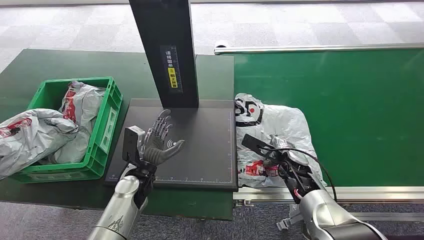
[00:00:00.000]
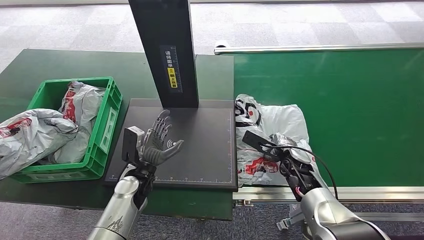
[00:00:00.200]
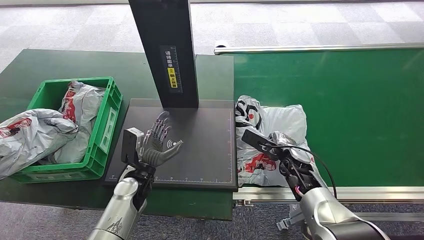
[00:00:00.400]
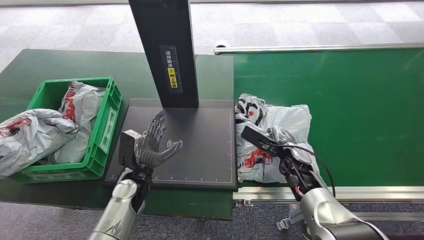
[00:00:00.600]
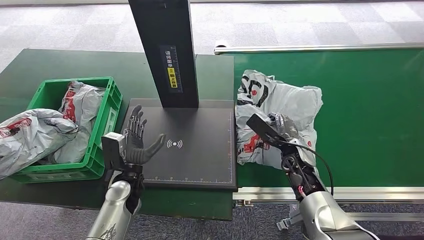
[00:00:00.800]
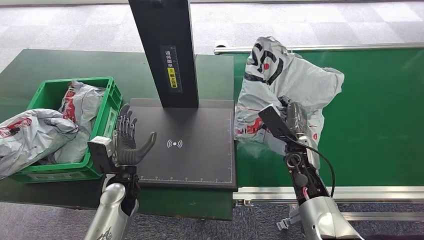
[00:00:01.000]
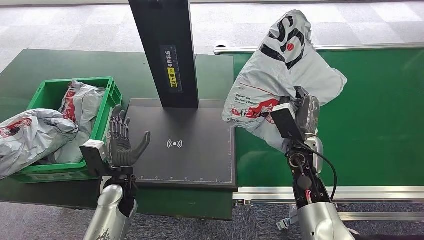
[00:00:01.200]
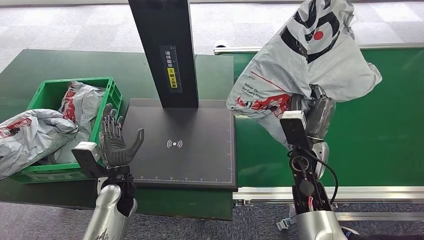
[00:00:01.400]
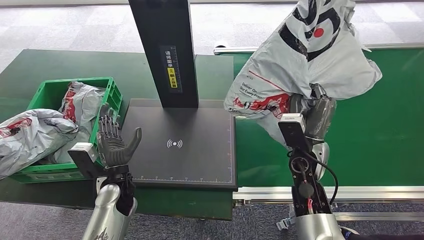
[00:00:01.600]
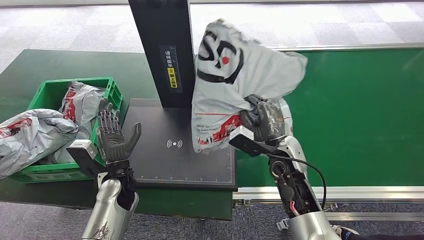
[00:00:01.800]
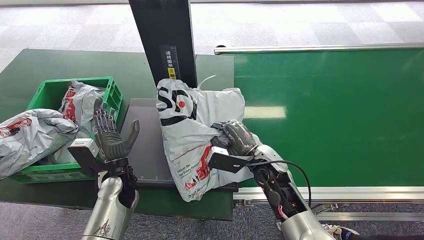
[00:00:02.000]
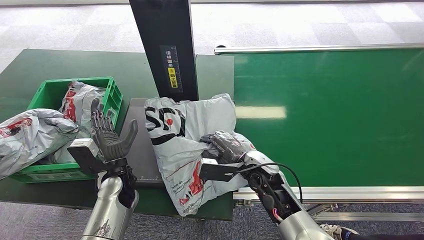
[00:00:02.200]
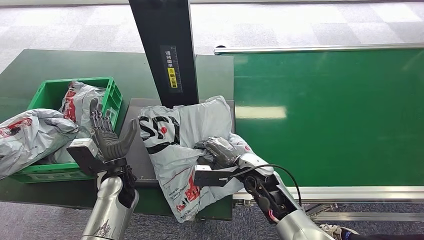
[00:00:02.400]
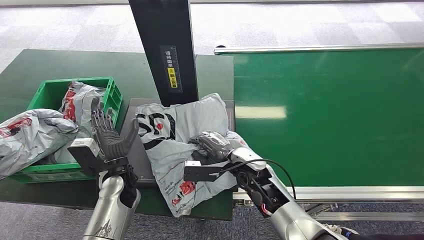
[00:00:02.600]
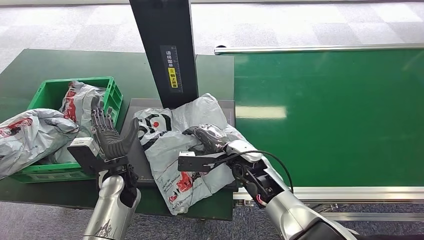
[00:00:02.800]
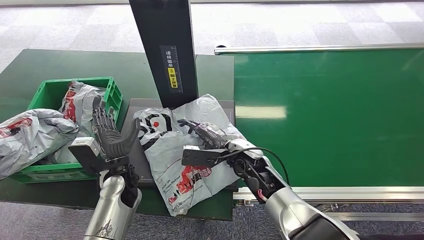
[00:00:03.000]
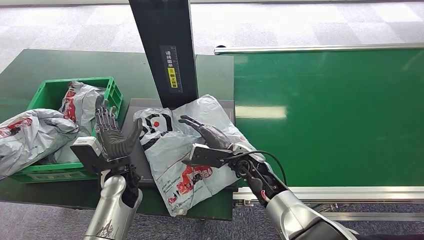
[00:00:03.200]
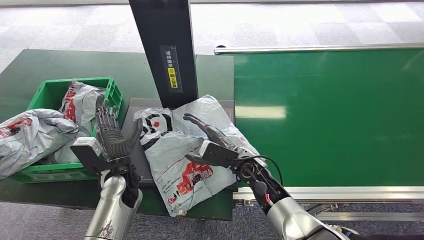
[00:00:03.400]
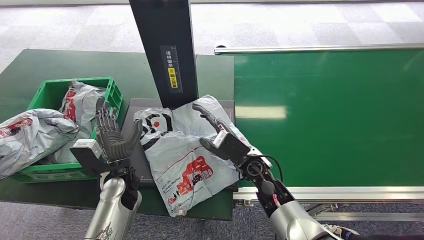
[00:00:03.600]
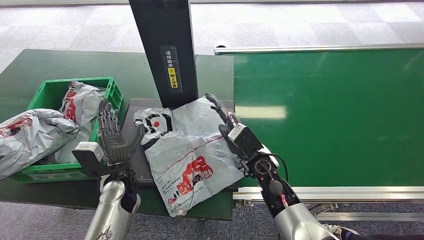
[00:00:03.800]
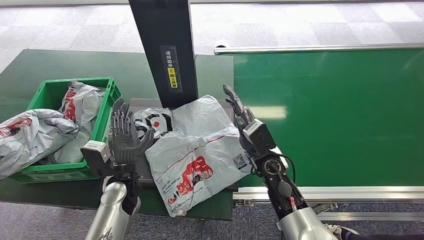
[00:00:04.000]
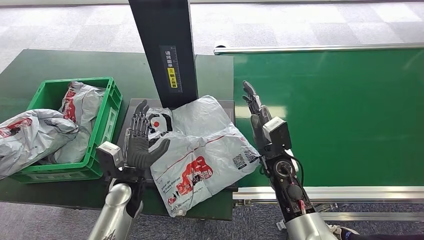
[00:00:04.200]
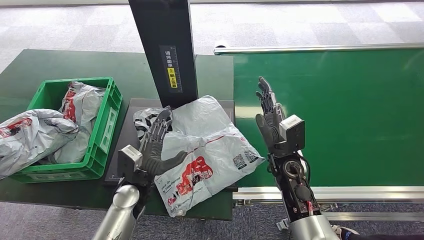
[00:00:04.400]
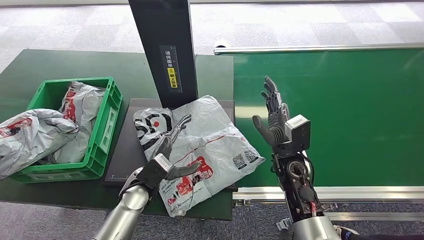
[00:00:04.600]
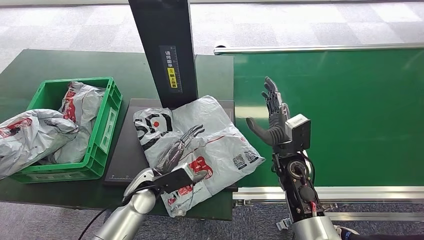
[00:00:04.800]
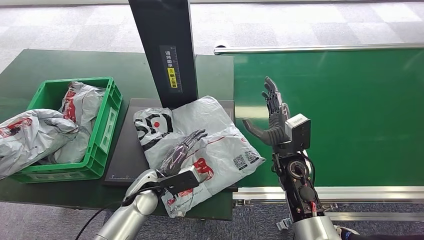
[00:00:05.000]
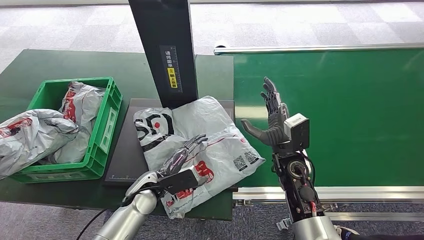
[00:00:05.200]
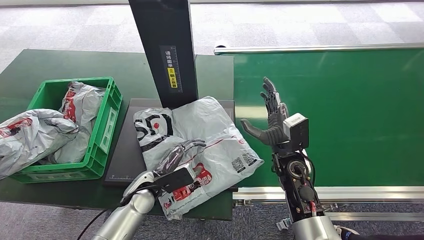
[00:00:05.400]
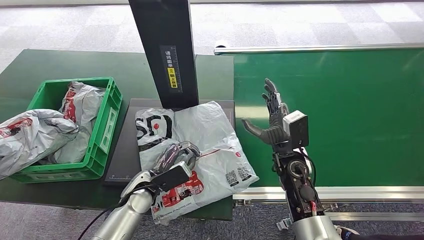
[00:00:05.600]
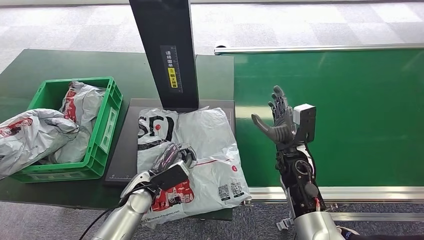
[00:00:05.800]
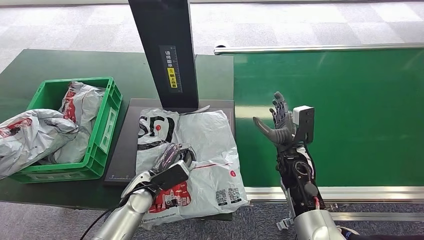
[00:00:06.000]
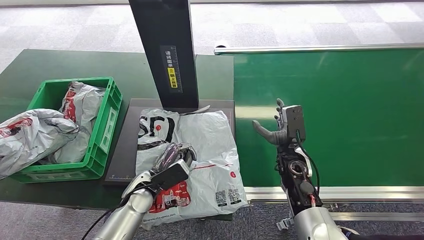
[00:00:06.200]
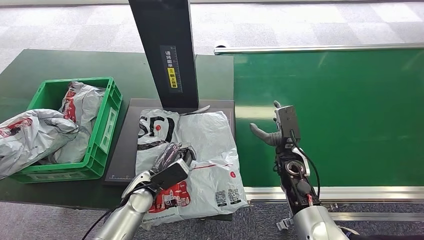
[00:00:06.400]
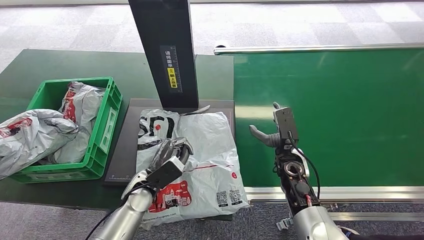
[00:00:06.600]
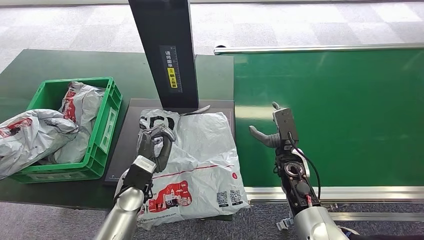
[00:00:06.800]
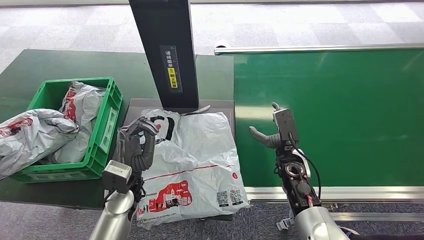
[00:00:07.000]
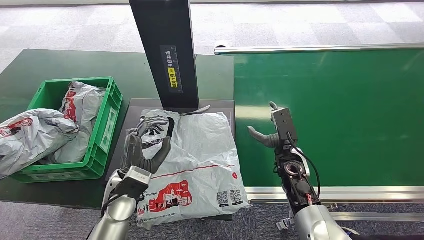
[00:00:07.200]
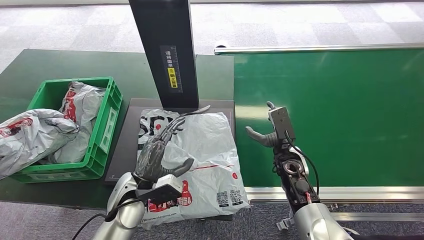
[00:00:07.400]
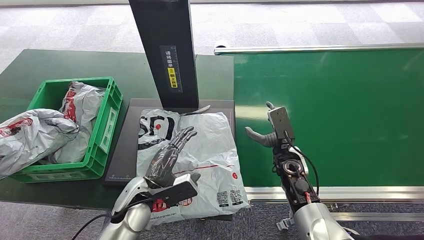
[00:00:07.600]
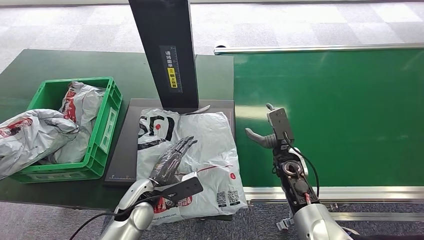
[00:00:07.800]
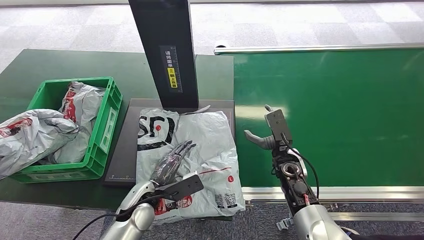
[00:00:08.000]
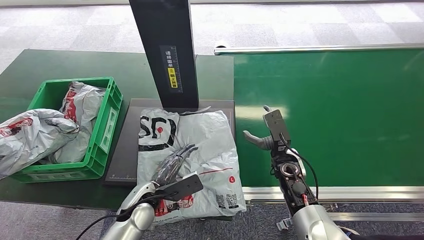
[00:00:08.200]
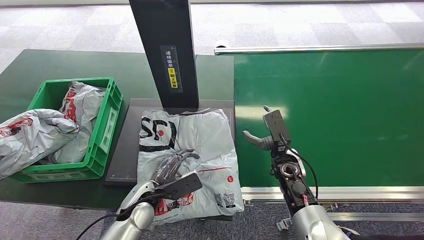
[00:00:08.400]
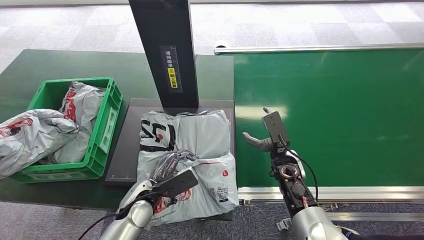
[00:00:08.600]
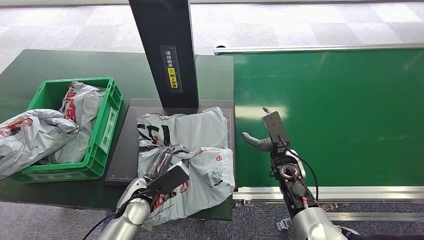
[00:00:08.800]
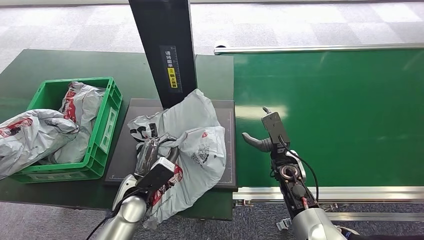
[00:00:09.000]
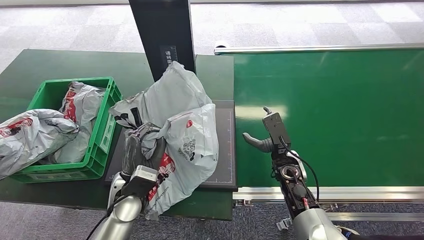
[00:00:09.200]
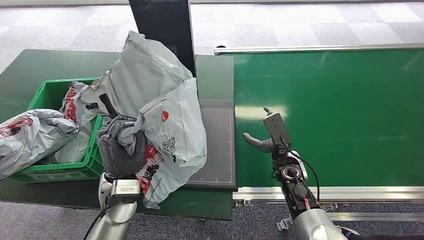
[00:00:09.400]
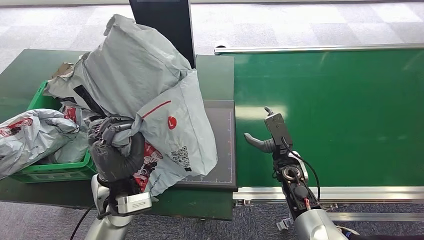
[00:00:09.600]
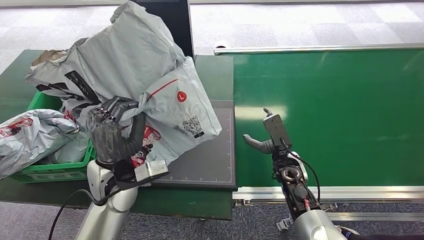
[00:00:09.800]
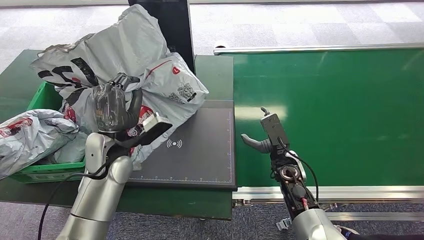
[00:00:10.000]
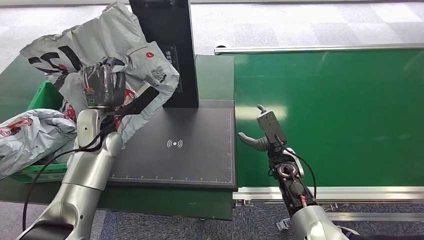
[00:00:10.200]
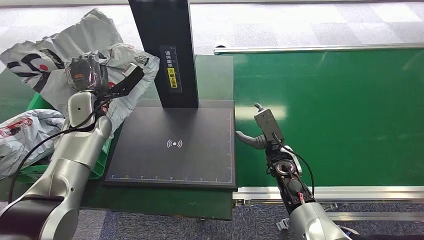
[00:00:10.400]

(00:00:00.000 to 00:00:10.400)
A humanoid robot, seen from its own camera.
Step, 00:00:00.000 - 00:00:01.600: Pick up the package from the conveyor belt.
Step, 00:00:01.800 - 00:00:04.600: Place the package onto the inbound machine.
Step, 00:00:07.000 - 00:00:09.600: Pick up the package from the inbound machine.
00:00:03.000 - 00:00:04.400: The right hand heads to the right, covering some 10 cm.
00:00:06.000 - 00:00:07.400: The left hand heads upward, covering roughly 5 cm.

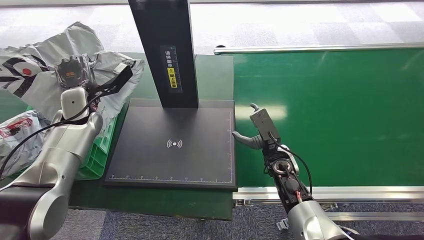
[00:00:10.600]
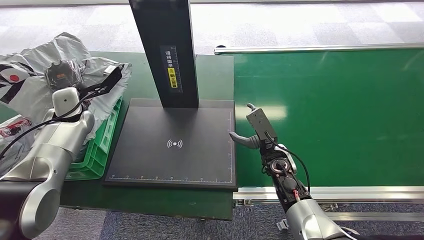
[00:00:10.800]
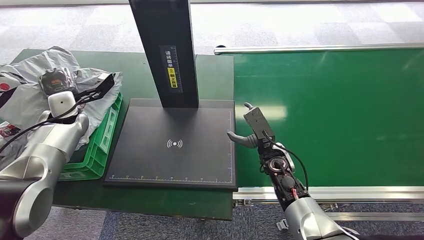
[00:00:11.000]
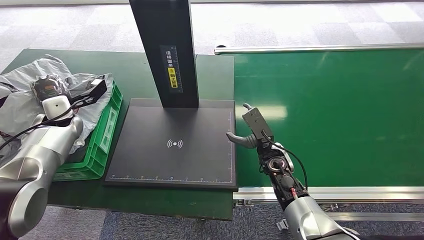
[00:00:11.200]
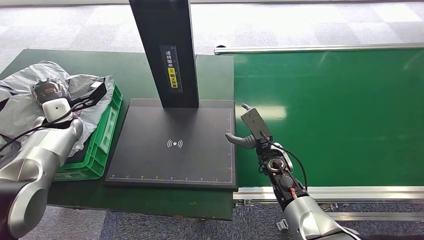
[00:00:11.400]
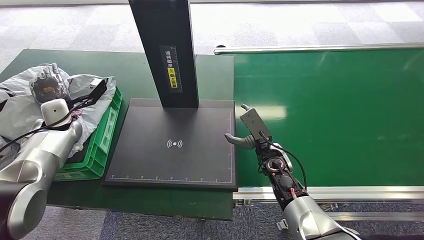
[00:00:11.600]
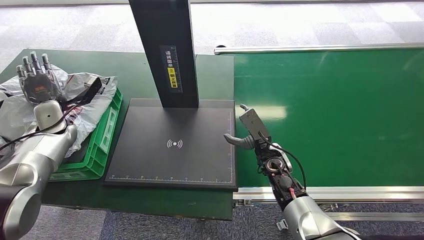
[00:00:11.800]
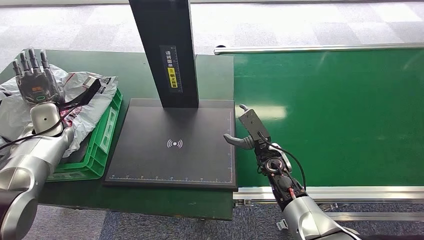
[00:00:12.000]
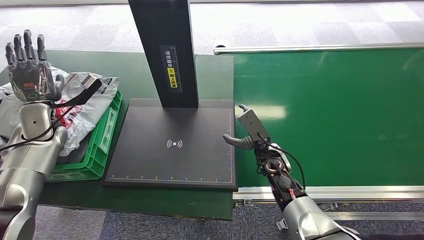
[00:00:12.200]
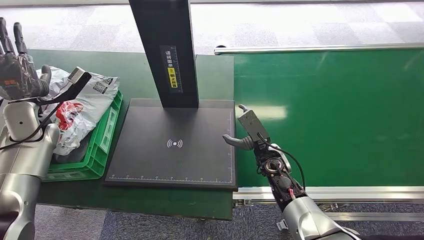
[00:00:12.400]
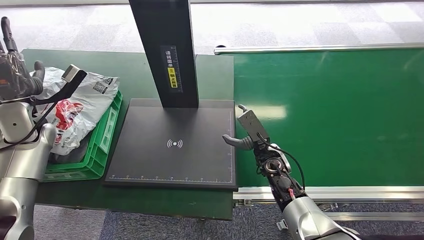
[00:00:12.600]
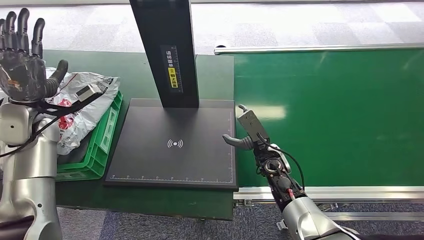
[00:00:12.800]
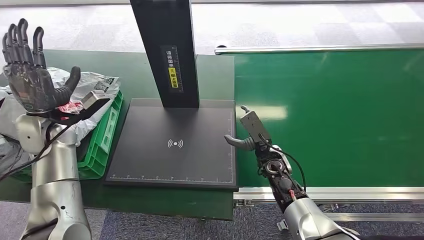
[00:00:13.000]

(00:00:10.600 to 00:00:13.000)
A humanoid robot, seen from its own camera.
Step, 00:00:10.600 - 00:00:12.800: Place the package into the parcel locker.
00:00:10.600 - 00:00:11.800: The left hand shifts about 10 cm to the left.
00:00:11.800 - 00:00:13.000: The left hand travels to the right and backward by about 10 cm.
